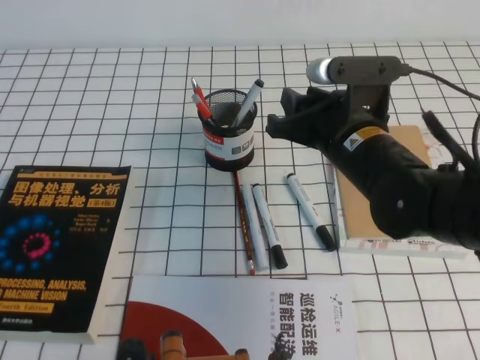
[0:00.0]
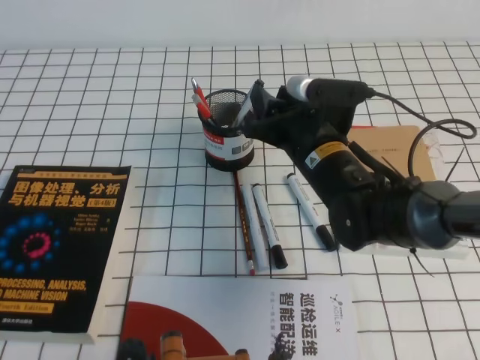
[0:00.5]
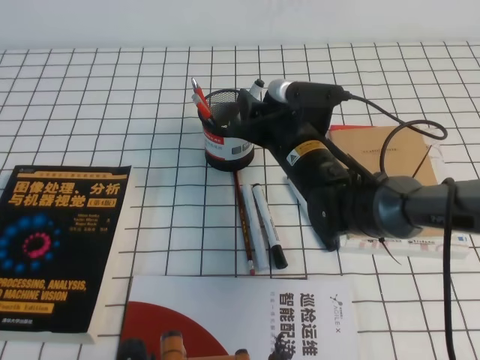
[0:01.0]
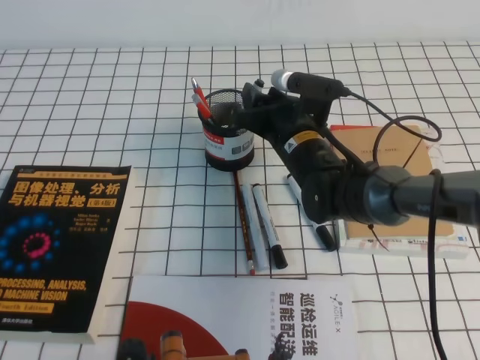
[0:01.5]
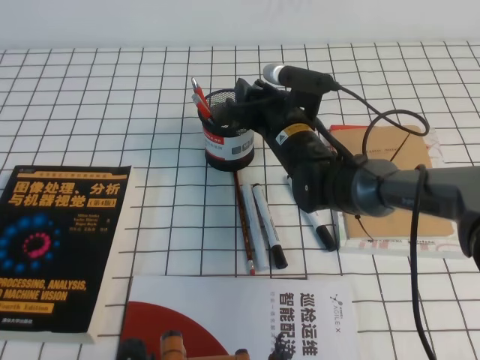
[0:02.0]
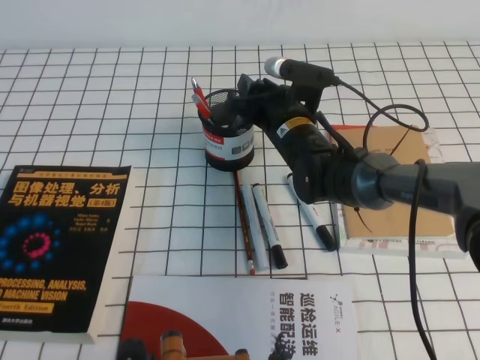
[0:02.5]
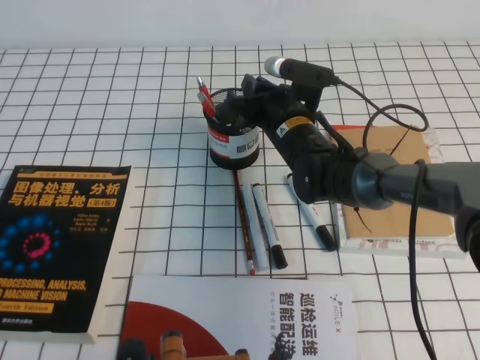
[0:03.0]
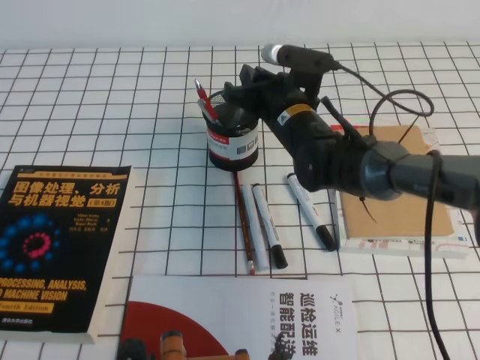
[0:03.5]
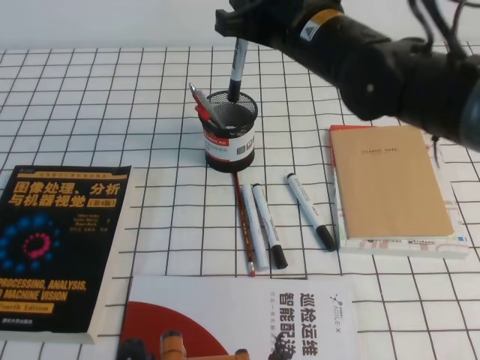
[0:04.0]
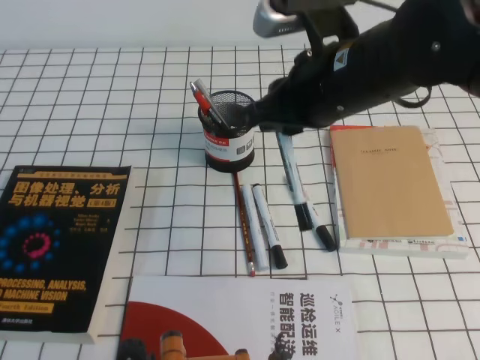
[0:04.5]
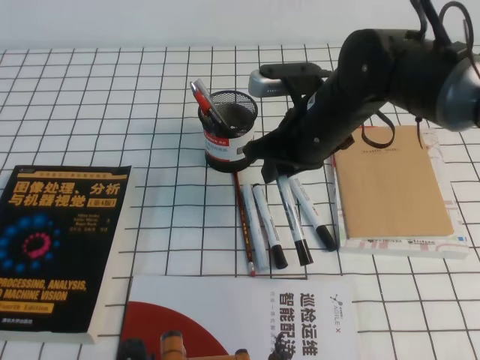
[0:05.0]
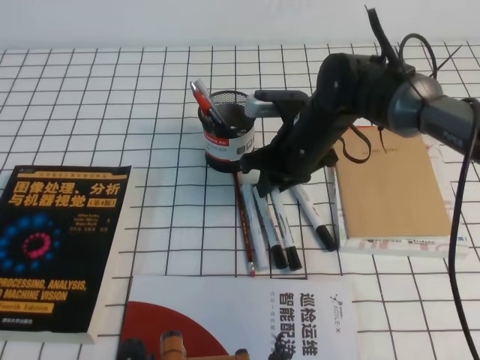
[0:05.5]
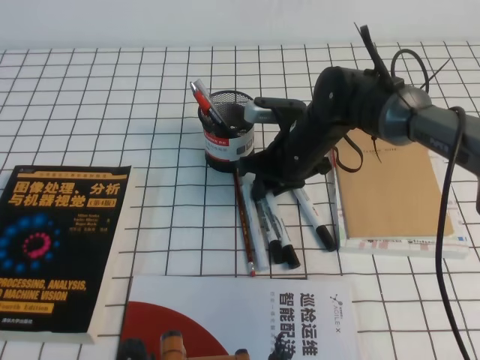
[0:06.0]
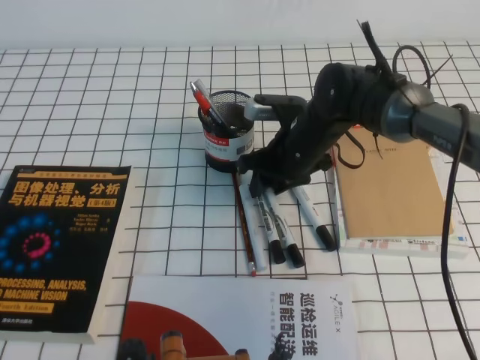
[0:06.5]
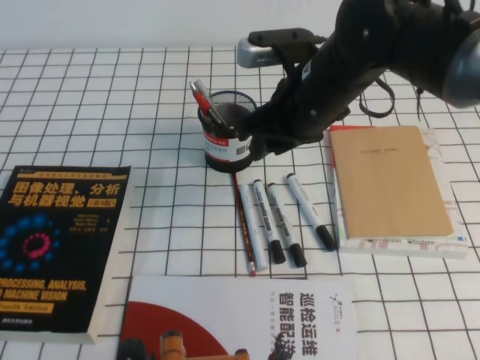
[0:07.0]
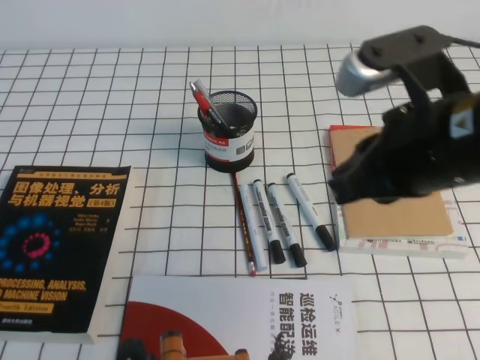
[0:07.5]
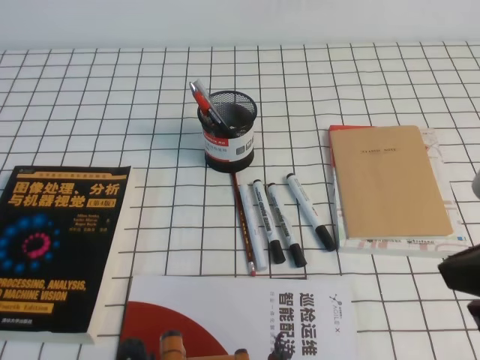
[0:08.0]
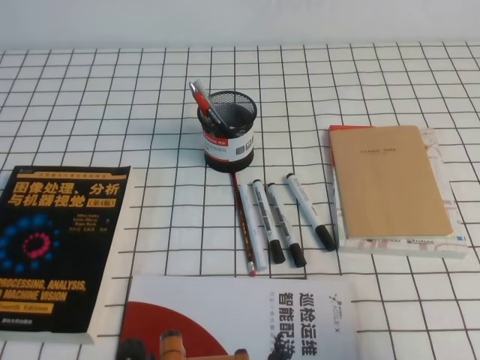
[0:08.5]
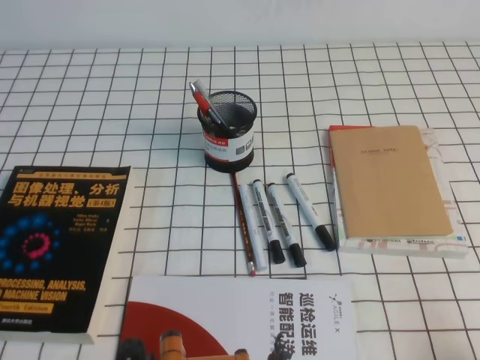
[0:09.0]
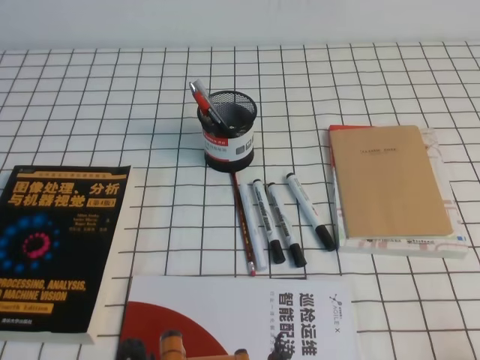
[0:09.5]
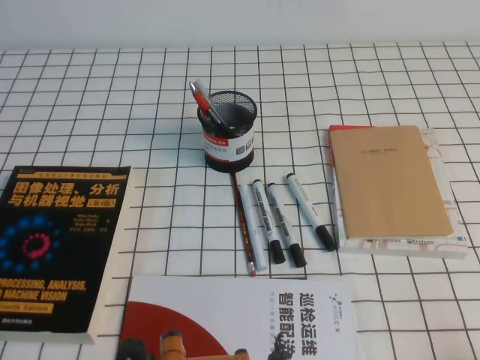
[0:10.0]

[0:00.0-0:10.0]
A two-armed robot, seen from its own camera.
Step, 0:00.0 to 0:10.0: Pick up the pen from the pen holder.
0:00.0 to 0:02.0: The right gripper shifts approximately 15 cm forward, downward and to the left, and opens.
0:02.0 to 0:04.0: The right gripper travels upward by roughly 15 cm, and closes.
0:04.0 to 0:06.0: The right gripper moves downward, approximately 15 cm.
0:06.0 to 0:08.0: The right gripper shifts about 35 cm backward, upward and to the right, and closes up.
0:08.0 to 0:10.0: The right gripper goes approximately 25 cm downward, to the right and backward.
